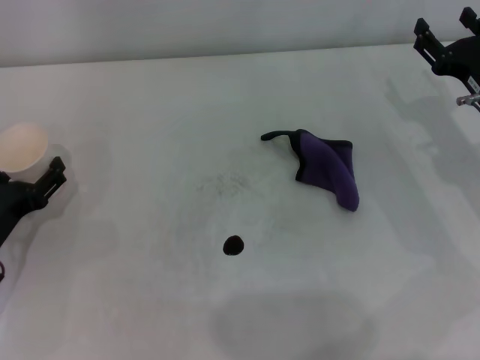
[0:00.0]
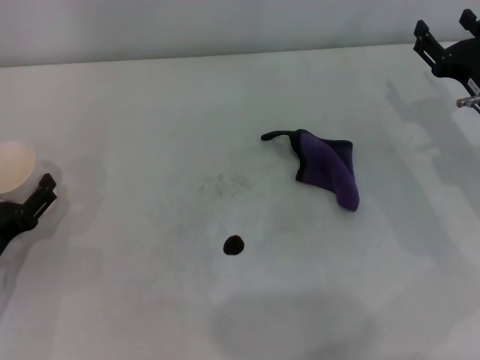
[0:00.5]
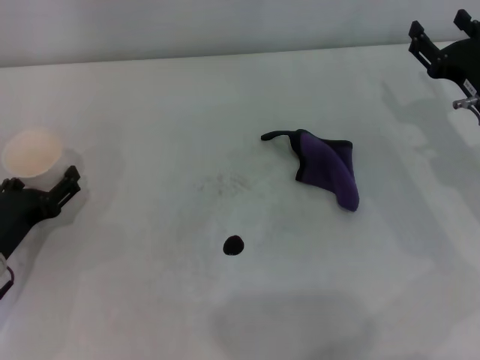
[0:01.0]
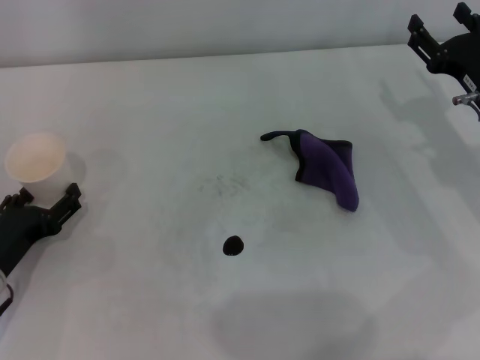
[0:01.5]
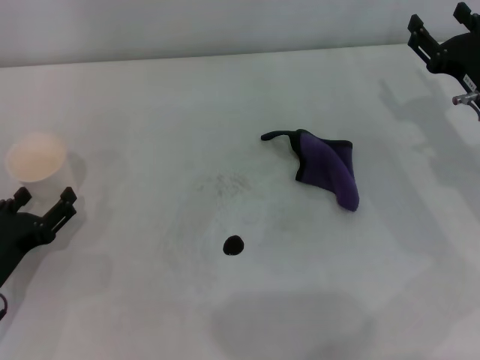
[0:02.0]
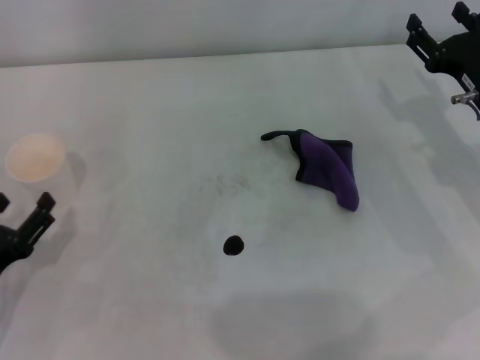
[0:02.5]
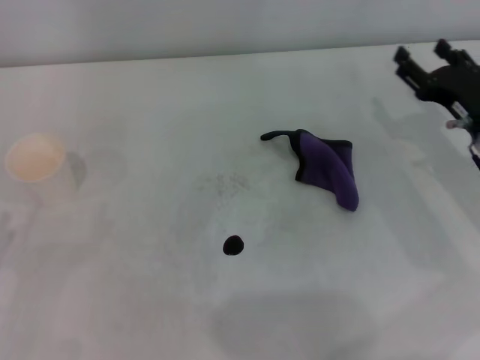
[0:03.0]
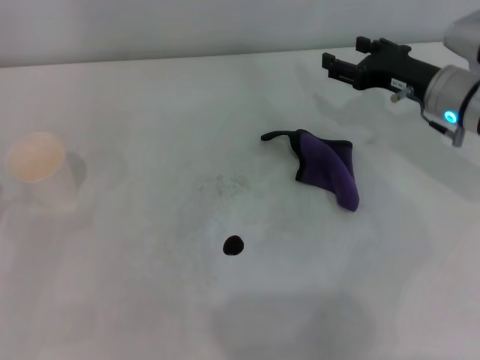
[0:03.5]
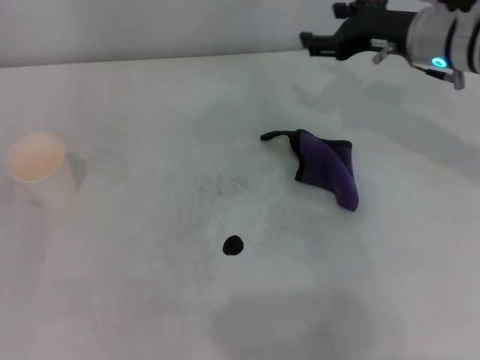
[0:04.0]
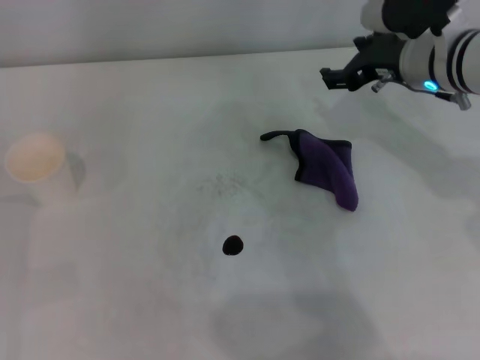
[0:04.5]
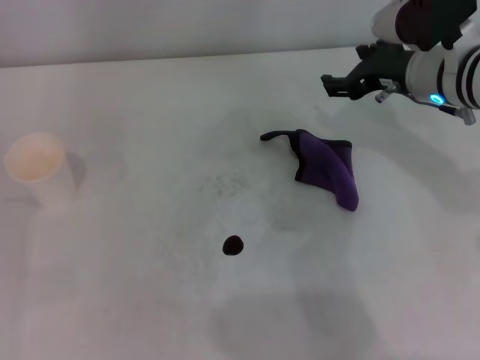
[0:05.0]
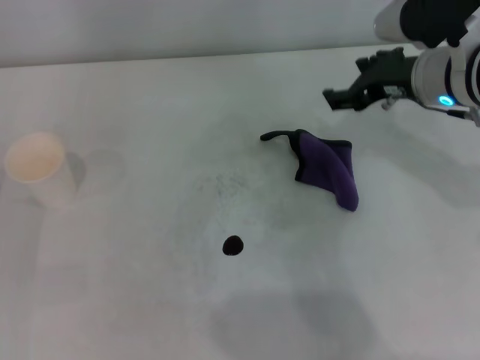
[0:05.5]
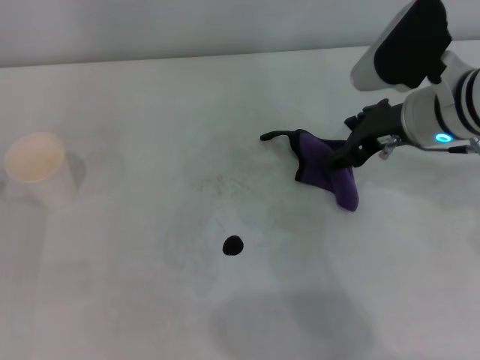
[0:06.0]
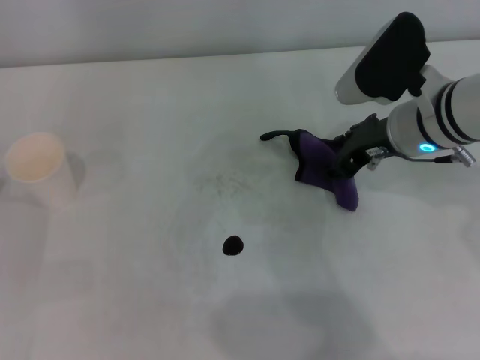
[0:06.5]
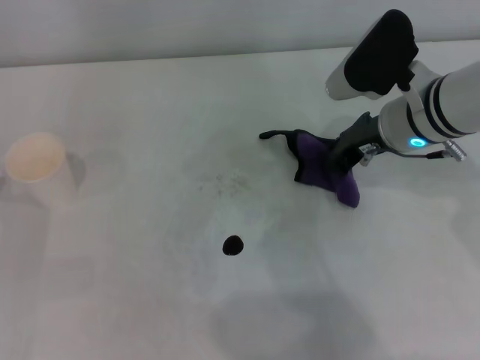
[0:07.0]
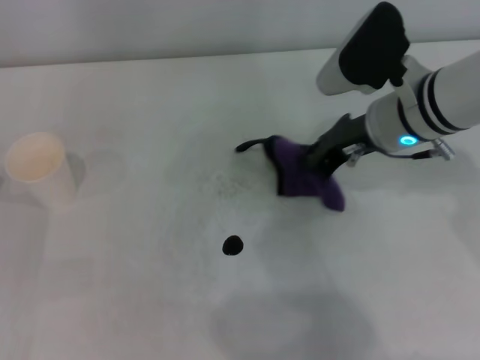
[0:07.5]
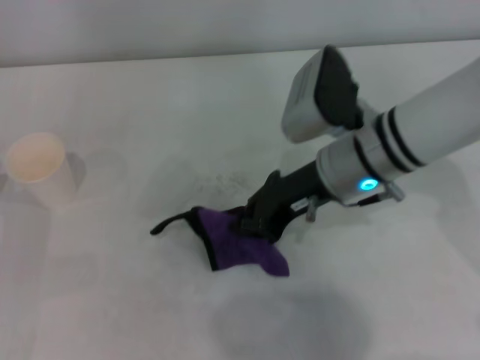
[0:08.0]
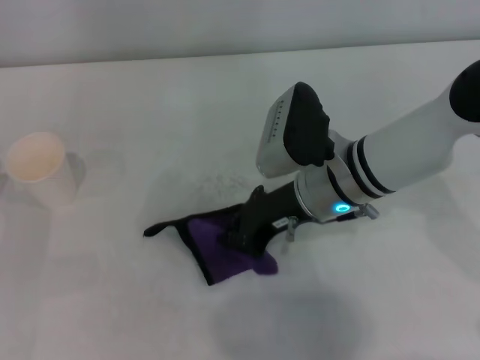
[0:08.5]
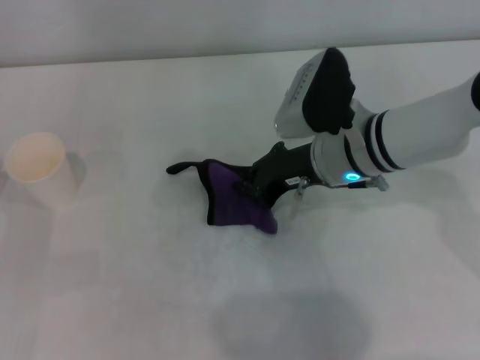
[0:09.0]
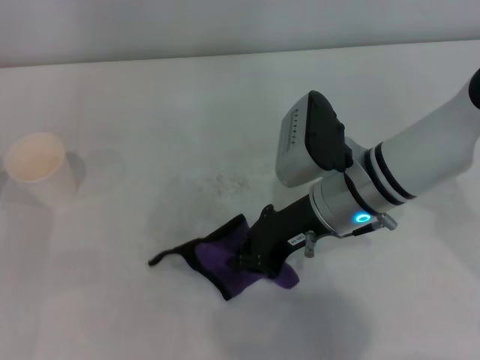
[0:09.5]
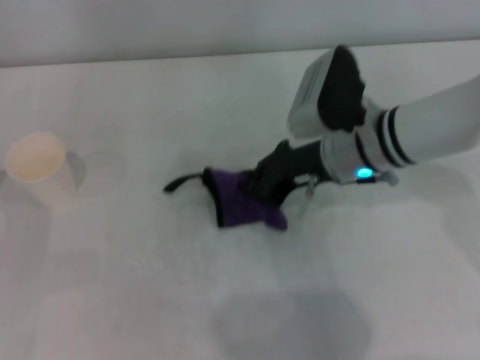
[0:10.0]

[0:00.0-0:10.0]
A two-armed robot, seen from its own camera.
Step, 0:02.0 to 0:06.5: Grasp the rag with the right gripper.
0:00.0 to 0:02.0: The grippers stay close to where they were, moving slightly.
0:02.0 to 0:04.0: The left gripper is displaced to the left by roughly 5 cm. The right gripper heads upward, forward and to the left, covering about 15 cm.
0:04.0 to 0:06.0: The right gripper is displaced backward by roughly 5 cm.
0:06.0 to 0:08.0: The right gripper moves to the left, some 5 cm, and closes.
0:08.0 to 0:10.0: The grippers make only small movements.

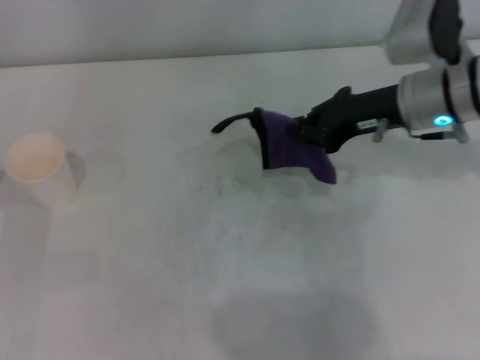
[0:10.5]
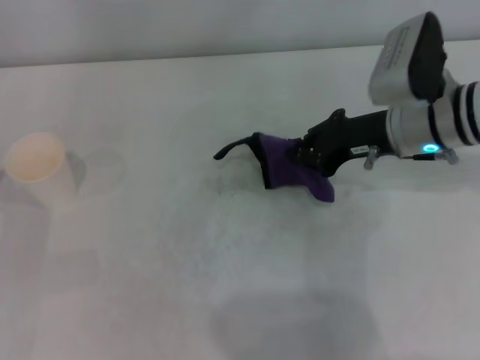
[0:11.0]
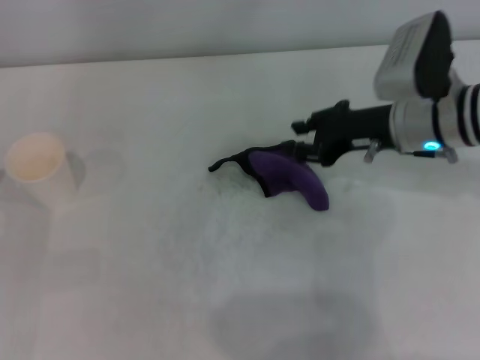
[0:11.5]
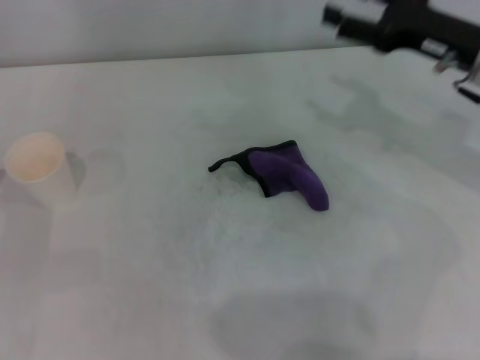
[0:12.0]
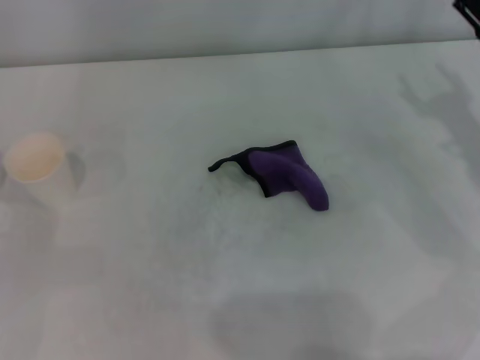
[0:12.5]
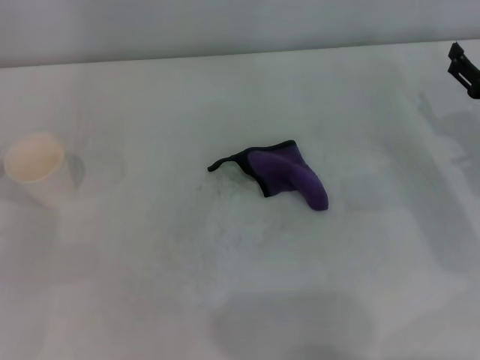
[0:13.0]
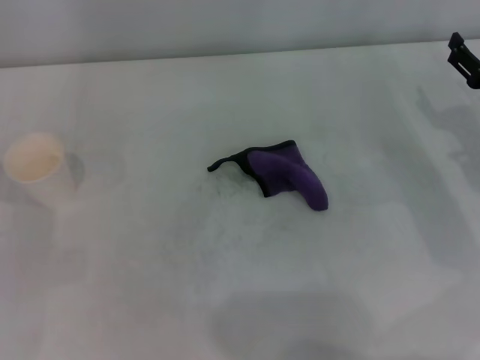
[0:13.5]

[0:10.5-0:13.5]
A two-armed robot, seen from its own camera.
0:10.5 to 0:12.0: The right gripper goes some 5 cm to the right, and opens.
0:12.0 to 0:13.5: The right gripper shifts roughly 10 cm downward and to the right.
